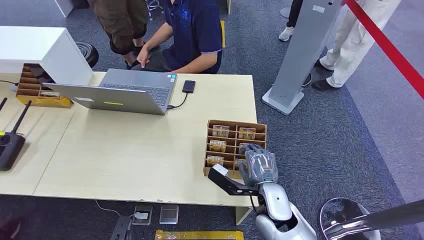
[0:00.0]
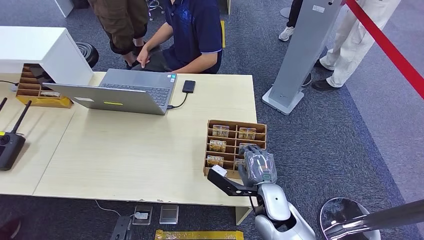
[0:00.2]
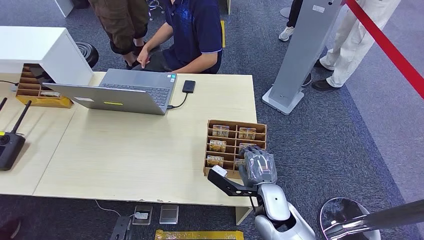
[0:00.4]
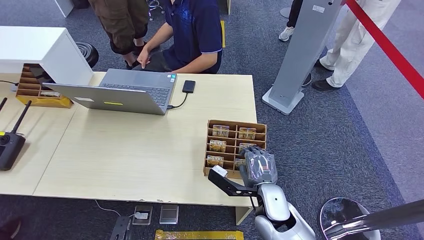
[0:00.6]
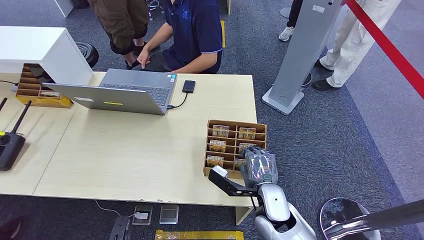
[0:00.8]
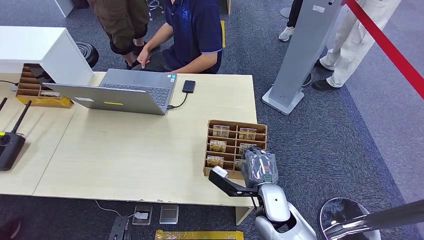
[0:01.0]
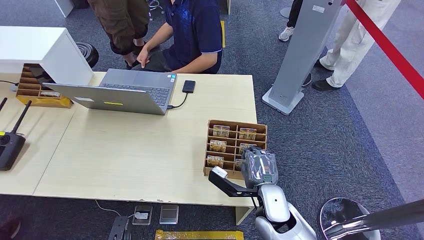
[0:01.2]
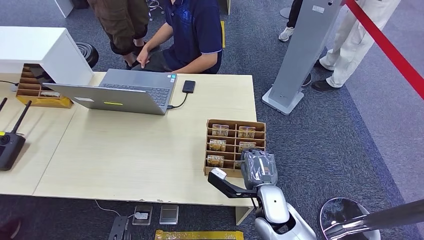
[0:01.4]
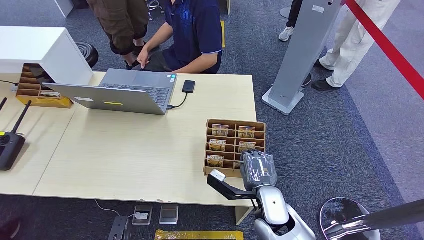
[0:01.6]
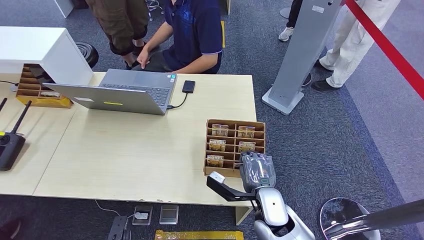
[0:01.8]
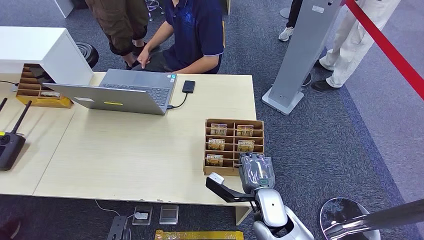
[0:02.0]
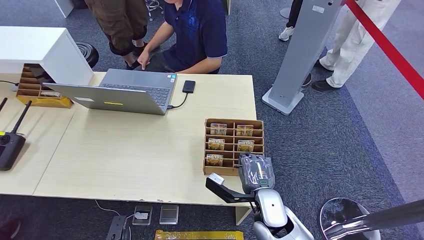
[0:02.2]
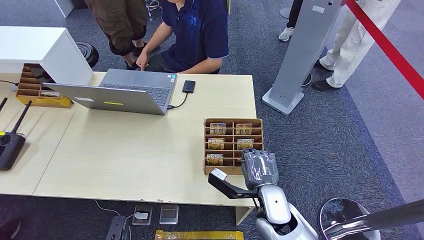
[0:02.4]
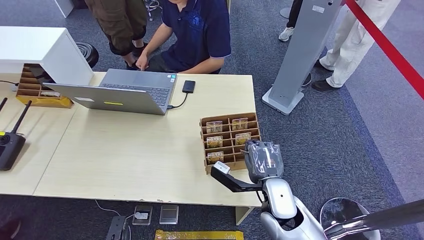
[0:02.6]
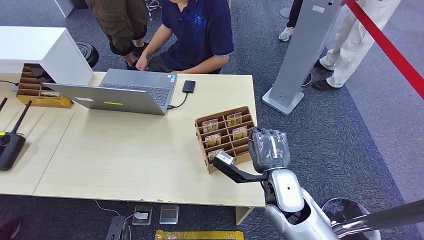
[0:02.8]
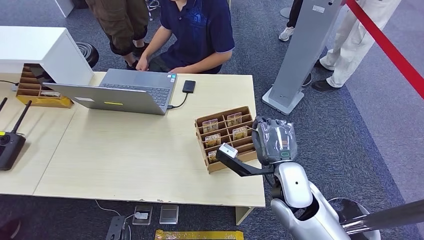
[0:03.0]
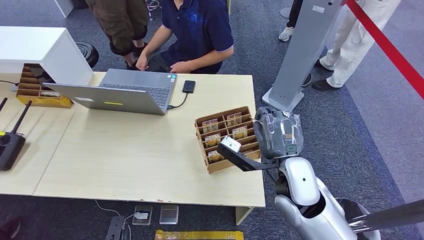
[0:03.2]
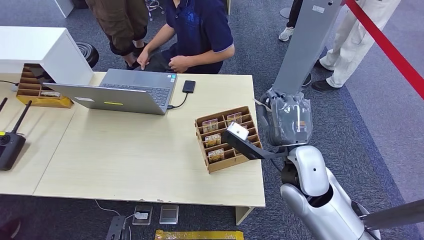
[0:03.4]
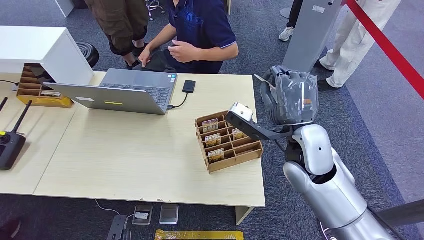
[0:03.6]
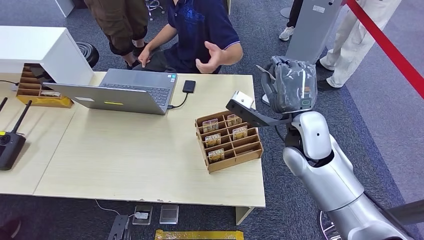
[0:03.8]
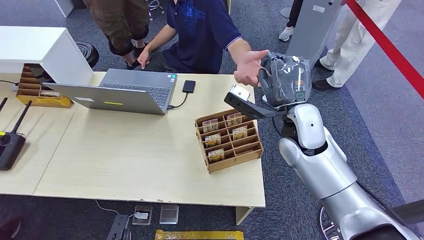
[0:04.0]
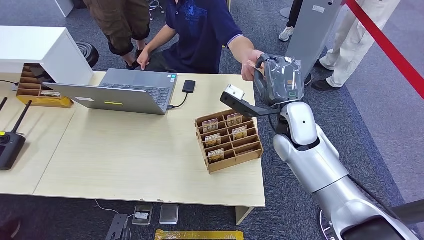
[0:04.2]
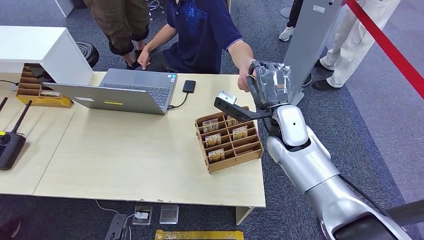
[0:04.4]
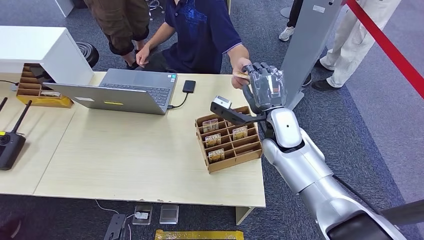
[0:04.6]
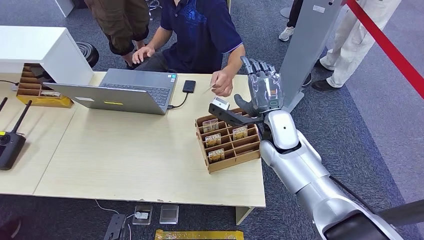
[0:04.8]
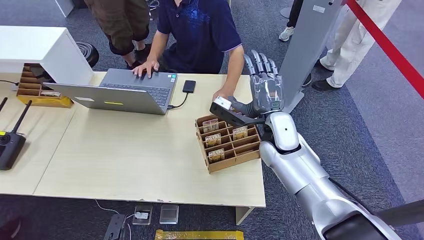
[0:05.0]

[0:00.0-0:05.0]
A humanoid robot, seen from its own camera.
Step, 0:00.0 to 0:02.8: Pick up the room card from the card holder.
Step, 0:03.8 to 0:04.8: Hand the room card to the target.
0:01.6 to 0:03.4: The right hand is displaced upward by about 15 cm.
0:03.4 to 0:05.0: The right hand moves forward, some 10 cm.
